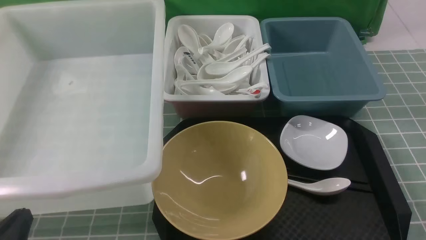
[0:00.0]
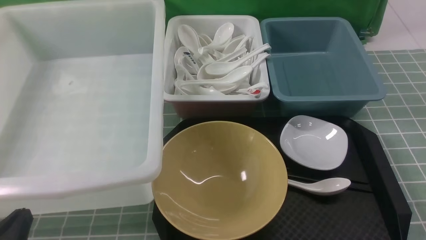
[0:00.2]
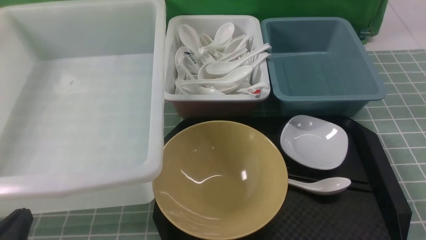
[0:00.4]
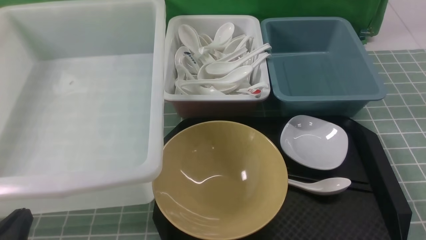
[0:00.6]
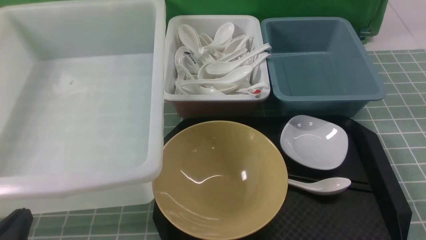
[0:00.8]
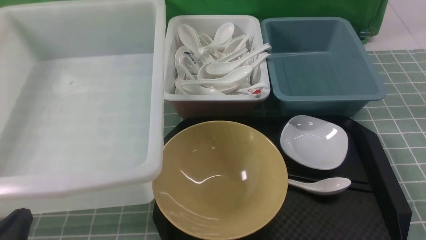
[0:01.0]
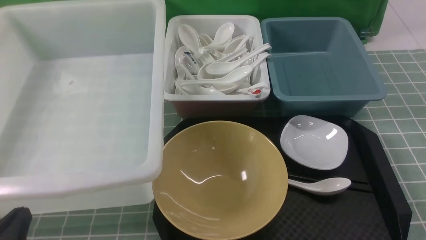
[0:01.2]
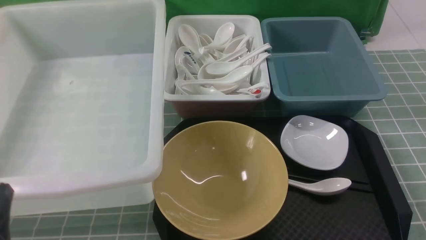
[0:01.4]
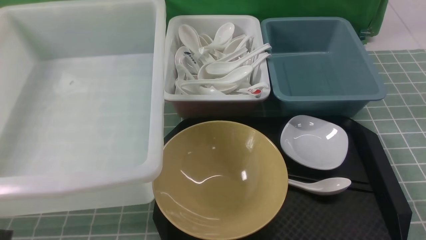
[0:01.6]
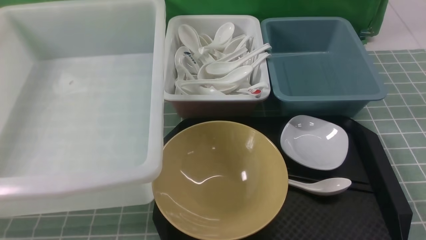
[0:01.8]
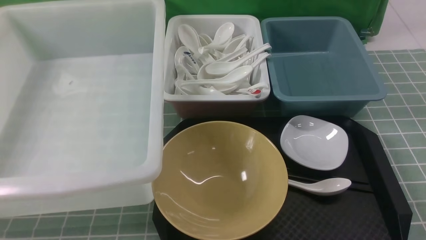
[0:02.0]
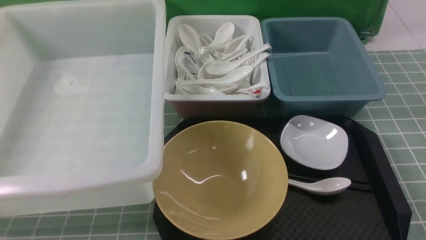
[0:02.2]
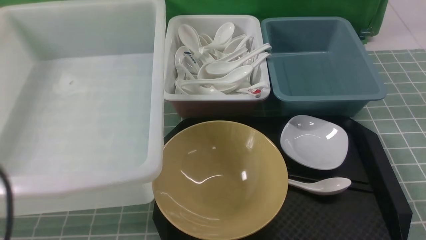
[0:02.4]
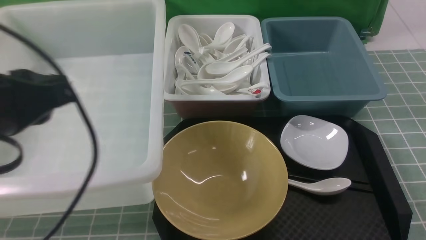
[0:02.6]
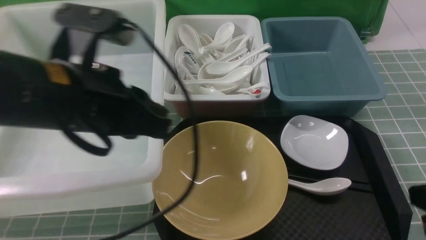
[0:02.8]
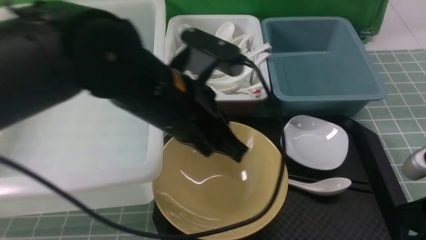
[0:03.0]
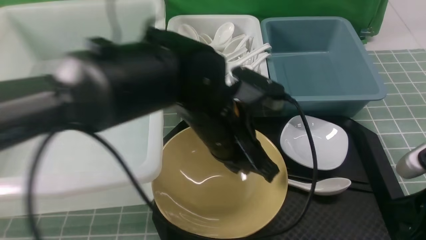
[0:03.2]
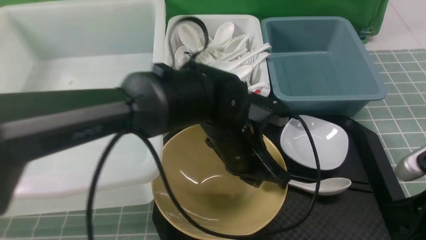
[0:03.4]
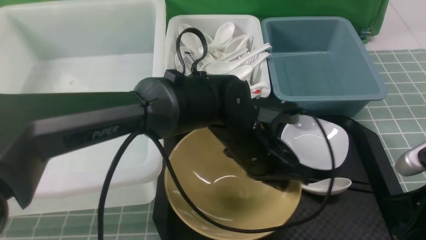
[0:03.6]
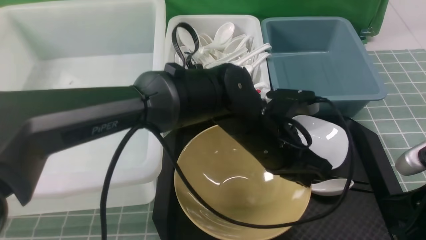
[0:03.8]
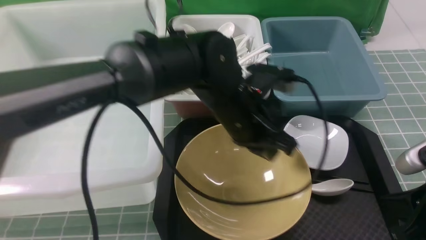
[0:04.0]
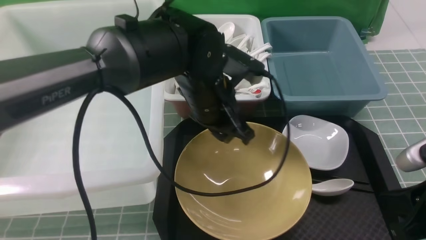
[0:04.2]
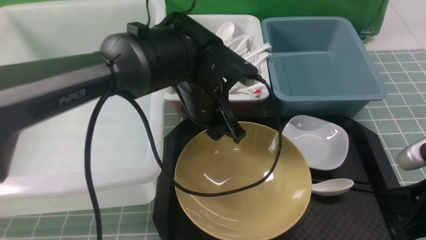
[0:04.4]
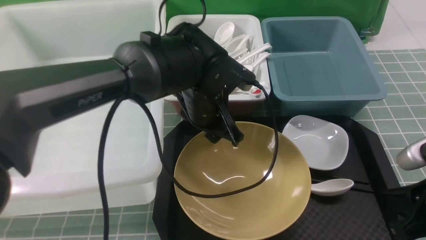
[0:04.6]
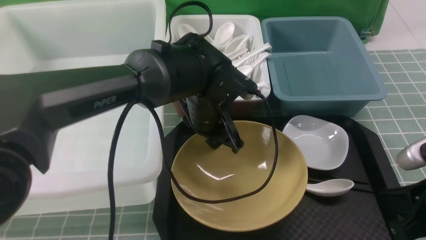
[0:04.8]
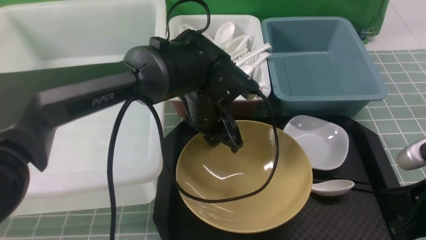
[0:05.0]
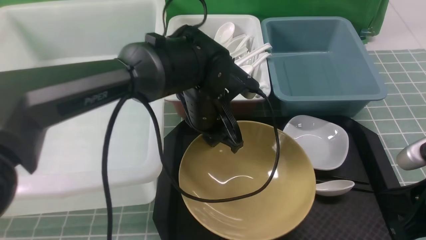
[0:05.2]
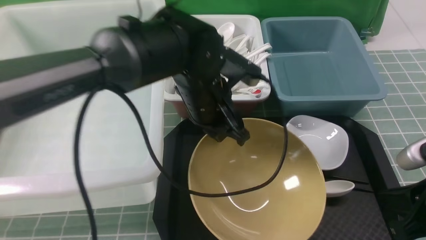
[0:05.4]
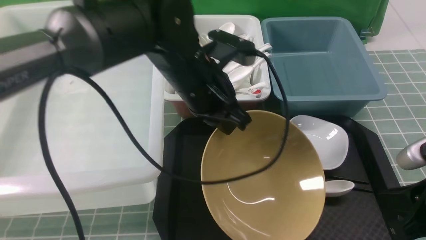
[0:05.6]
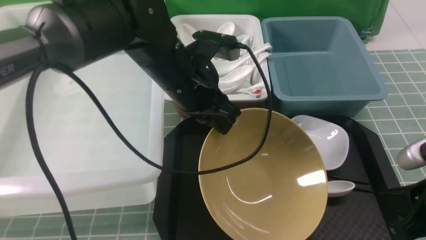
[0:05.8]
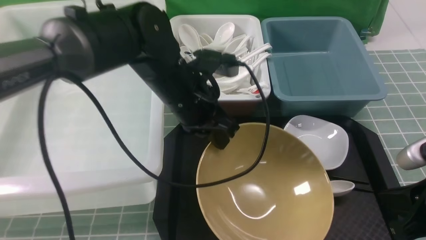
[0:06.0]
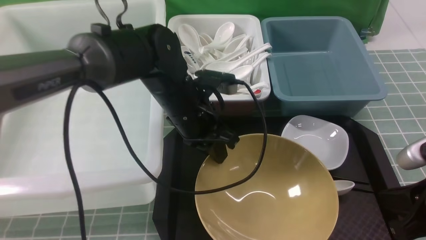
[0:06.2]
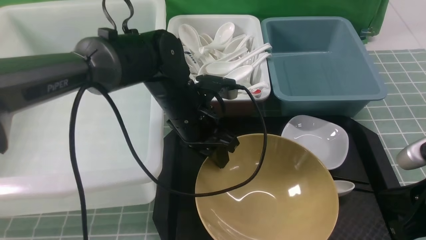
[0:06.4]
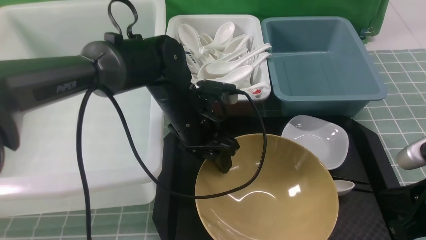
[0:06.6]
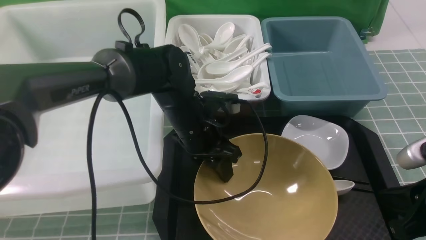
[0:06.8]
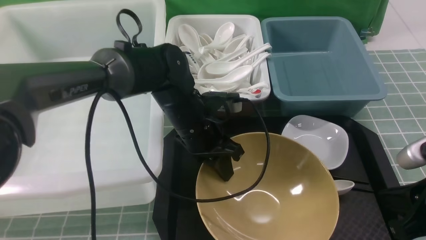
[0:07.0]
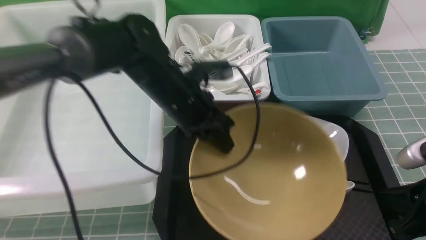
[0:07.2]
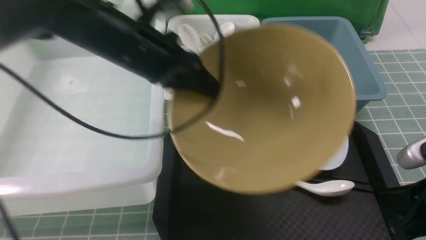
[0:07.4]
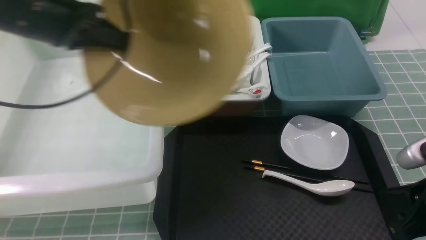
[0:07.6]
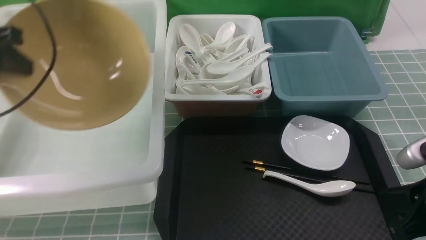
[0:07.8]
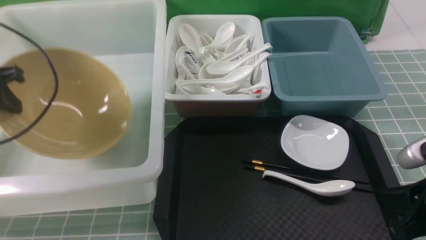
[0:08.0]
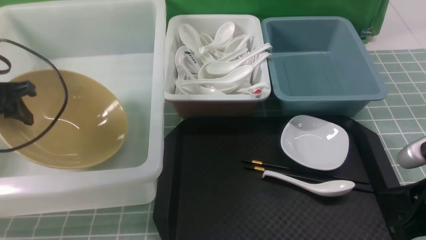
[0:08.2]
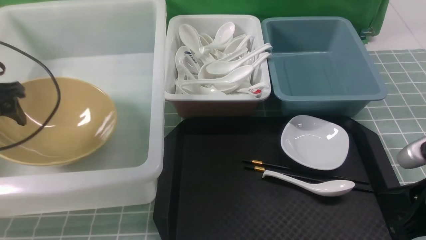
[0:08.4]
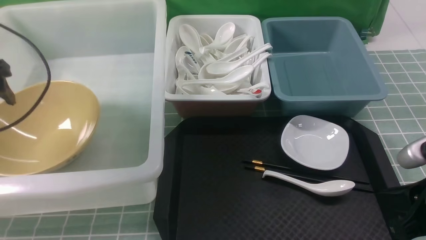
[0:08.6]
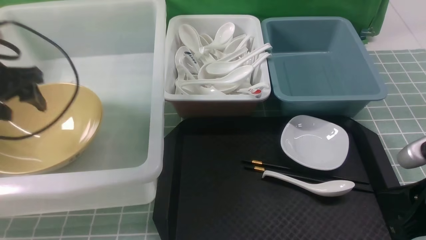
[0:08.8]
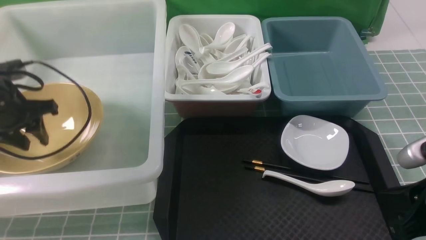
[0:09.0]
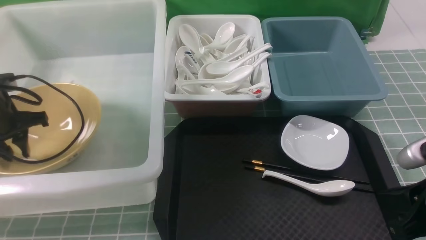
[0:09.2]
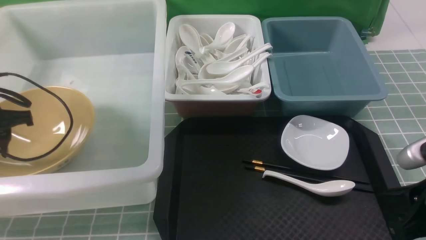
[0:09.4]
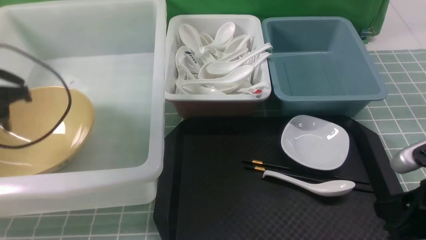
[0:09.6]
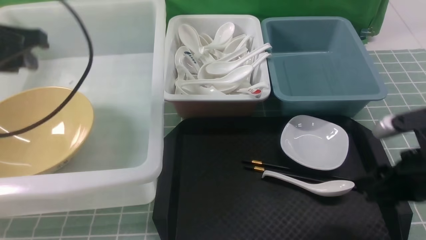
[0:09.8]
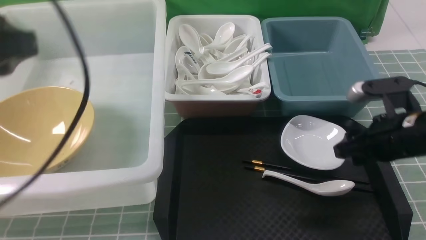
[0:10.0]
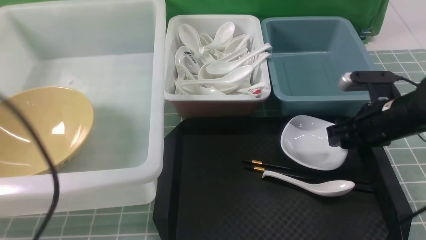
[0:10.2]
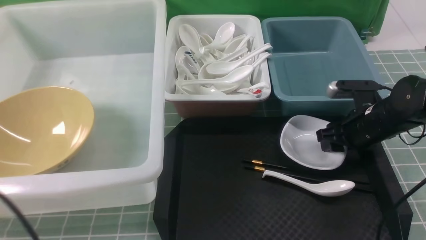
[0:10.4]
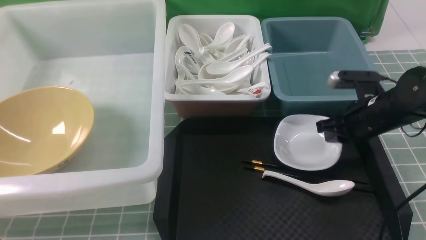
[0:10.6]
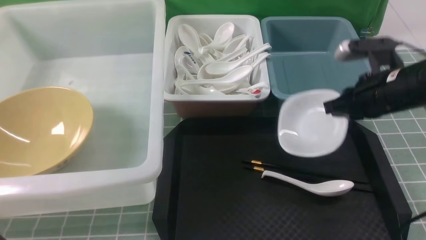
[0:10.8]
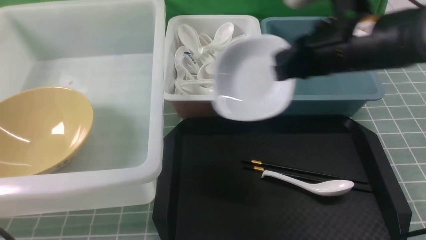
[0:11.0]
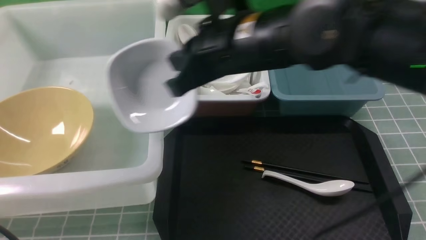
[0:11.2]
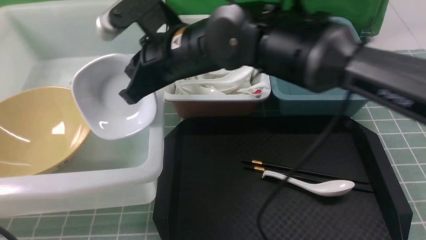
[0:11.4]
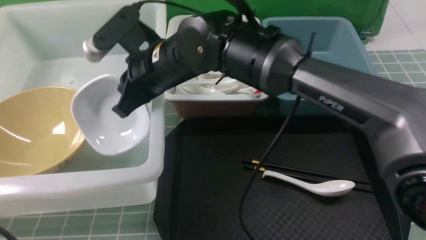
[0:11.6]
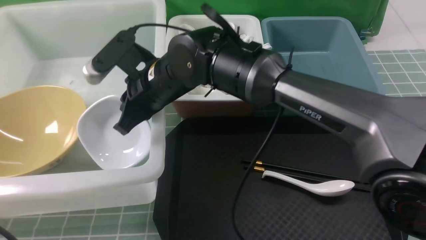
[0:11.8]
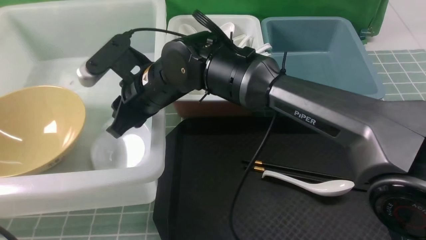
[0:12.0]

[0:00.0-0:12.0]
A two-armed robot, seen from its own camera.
Task of the whole recording: on blue table put chopsticks spoon bowls plates into blue grey white boxes.
Step, 0:00.0 to 0:05.4: use the left arm to grab the yellow noodle bowl on the left.
Step, 0:05.6 to 0:08.4: use the left arm to put the noodle bowl into the large storage box on the left.
Step, 0:08.8 to 0:10.8: use the right arm to grab the plate.
0:00.0 to 0:01.6: The left gripper travels upward by approximately 5 cm.
0:01.6 to 0:03.0: The right gripper goes approximately 10 cm forward, reaches approximately 10 cm upward, then returns, and closes. Meanwhile the left gripper goes about 30 cm to the right and forward.
0:03.0 to 0:04.4: The left gripper moves forward and downward, about 10 cm, and opens up.
0:04.4 to 0:06.0: The left gripper closes.
0:06.0 to 0:07.6: The left gripper heads to the left and upward, covering approximately 20 cm, and opens, then closes once more.
0:07.6 to 0:09.0: The left gripper shifts some 15 cm downward and to the left, and opens its fingers.
0:09.0 to 0:10.4: The left gripper heads backward, covering roughly 30 cm, and closes up; the right gripper moves forward, about 20 cm, and opens its fingers.
0:10.4 to 0:12.0: The right gripper is displaced to the left by roughly 35 cm, and closes, then opens again.

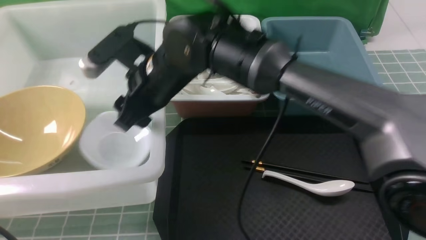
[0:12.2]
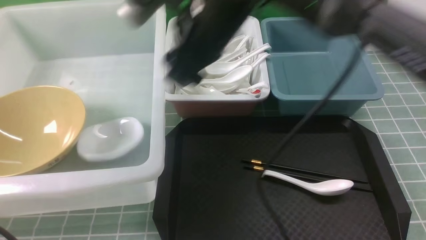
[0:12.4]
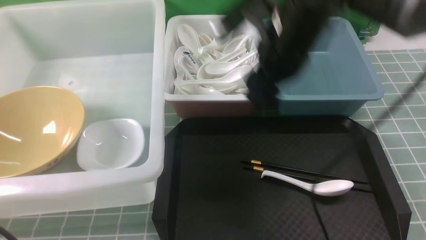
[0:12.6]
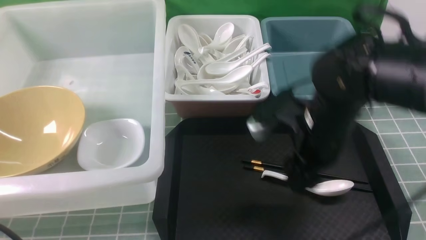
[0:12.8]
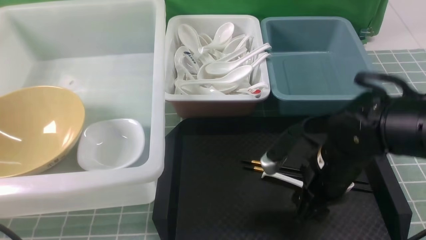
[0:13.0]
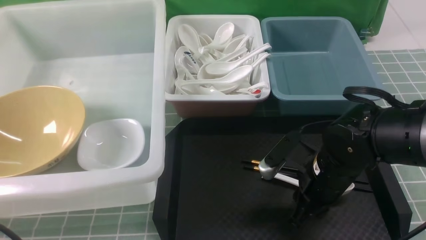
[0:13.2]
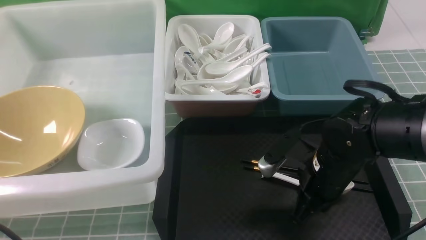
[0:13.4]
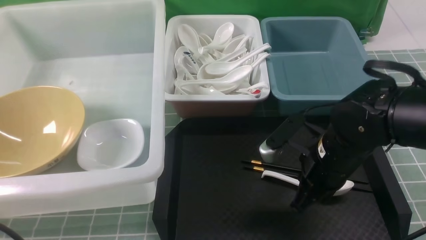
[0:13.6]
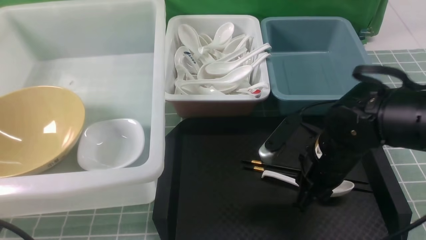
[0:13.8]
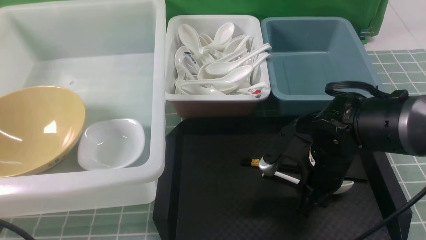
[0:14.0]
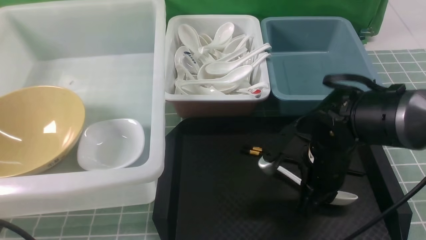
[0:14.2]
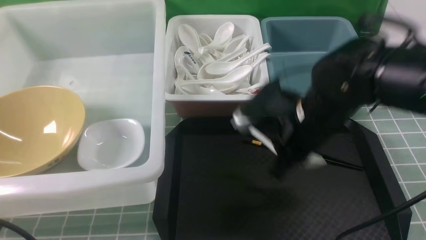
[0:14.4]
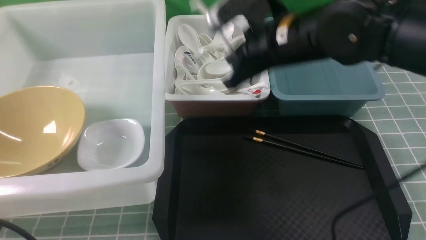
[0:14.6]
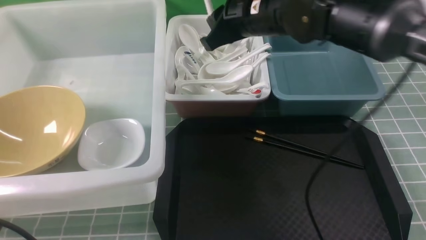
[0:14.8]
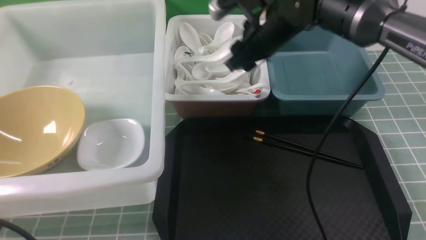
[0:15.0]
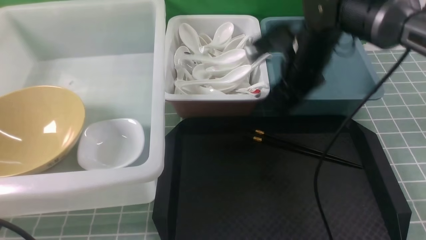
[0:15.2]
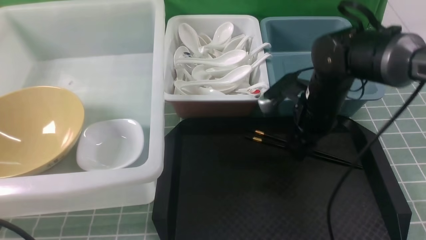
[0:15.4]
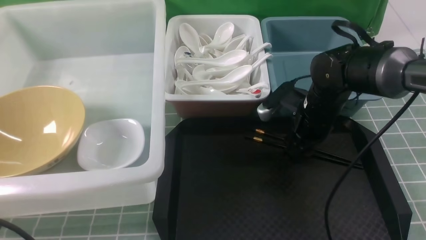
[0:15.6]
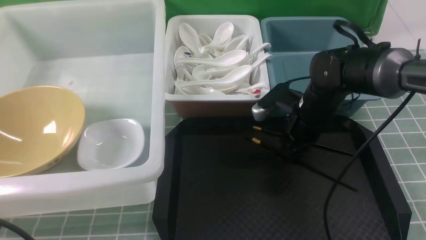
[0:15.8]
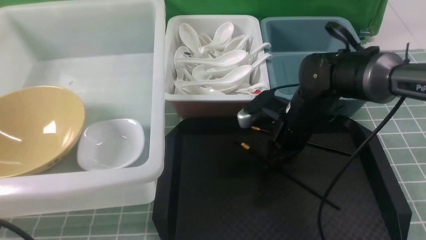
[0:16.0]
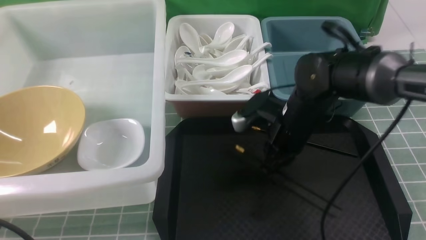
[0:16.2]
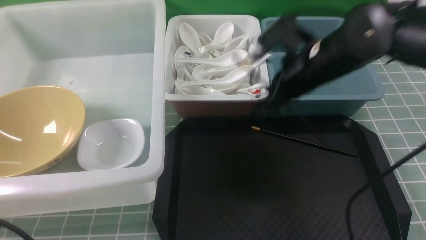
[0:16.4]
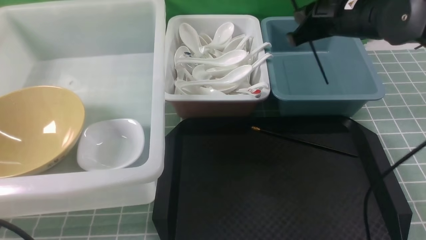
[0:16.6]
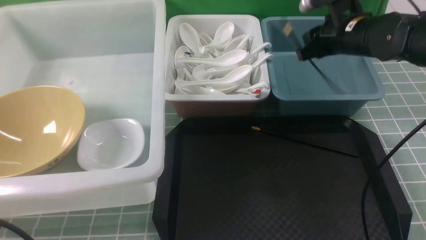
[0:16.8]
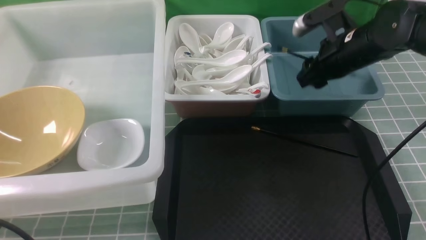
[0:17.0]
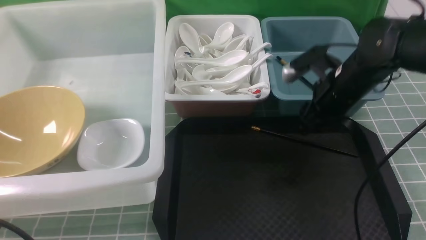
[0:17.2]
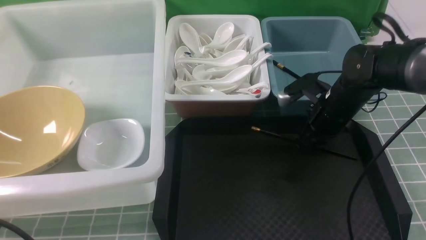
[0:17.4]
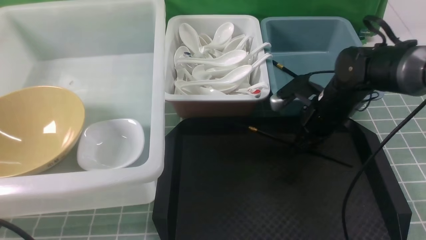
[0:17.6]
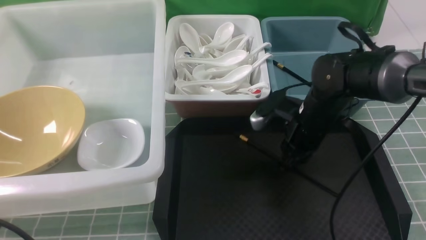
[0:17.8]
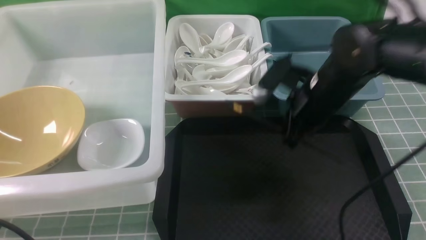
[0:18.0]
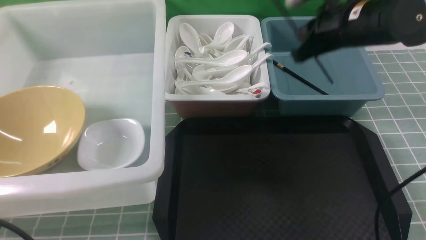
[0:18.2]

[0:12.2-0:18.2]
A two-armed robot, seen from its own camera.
Task of the whole recording: on blue table put chopsticks spoon bowls plates into blue grey white boxes.
Step, 0:12.4 to 0:14.4: use the right arm to grab the soup spoon in the middle.
Step, 0:14.6 to 0:15.0: use the right arm to put the soup spoon into the small storage box in the middle.
Step, 0:15.2 to 0:16.2: use the right arm to grab a chopstick.
Step, 0:16.4 to 0:16.8: use the right arm to put a chopstick into the small storage box on the right.
Step, 0:17.0 to 0:17.8: use the right arm to grab a chopstick.
0:12.2 to 0:13.8: The right gripper is displaced to the right, downward and backward by approximately 25 cm, and closes.
0:13.8 to 0:15.2: The right gripper shifts roughly 15 cm forward and upward, and opens.
0:15.2 to 0:16.6: The right gripper moves upward and to the right, about 5 cm, and closes its fingers.
0:16.6 to 0:18.2: The right gripper reaches some 10 cm downward, then returns, and opens, then closes once more.
